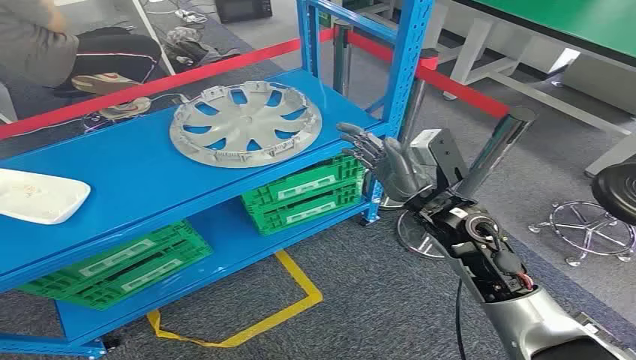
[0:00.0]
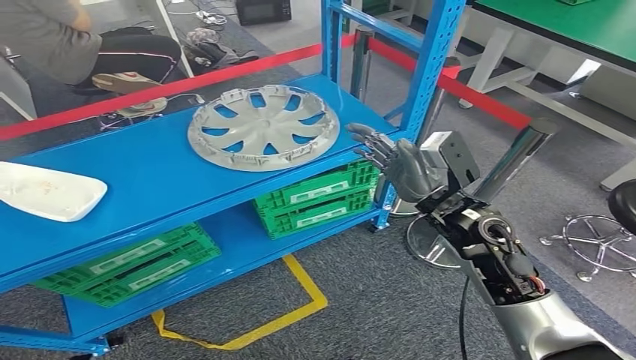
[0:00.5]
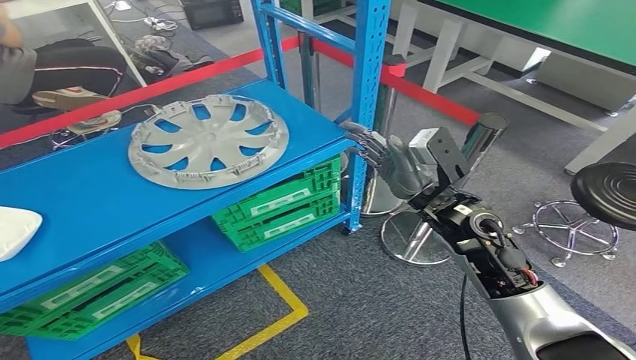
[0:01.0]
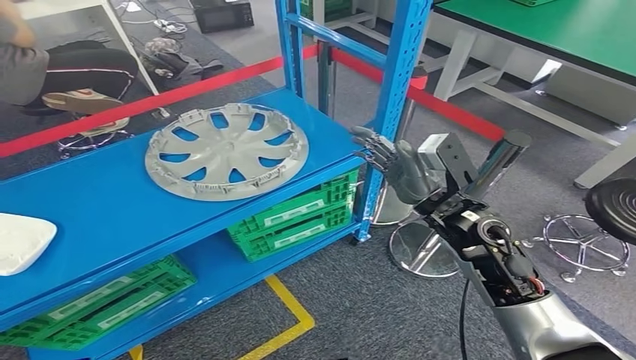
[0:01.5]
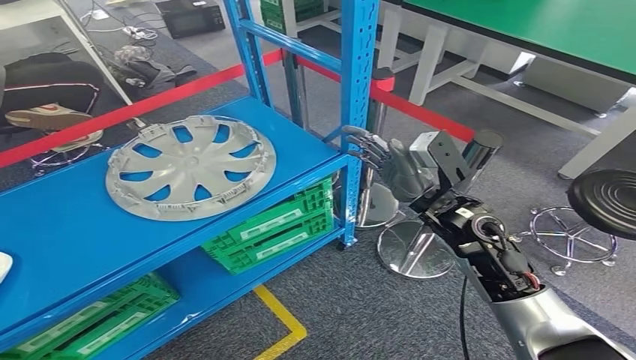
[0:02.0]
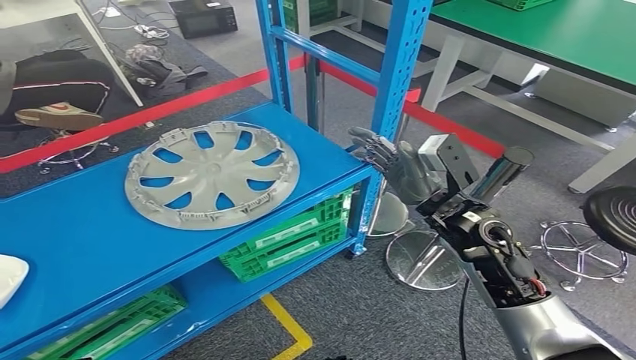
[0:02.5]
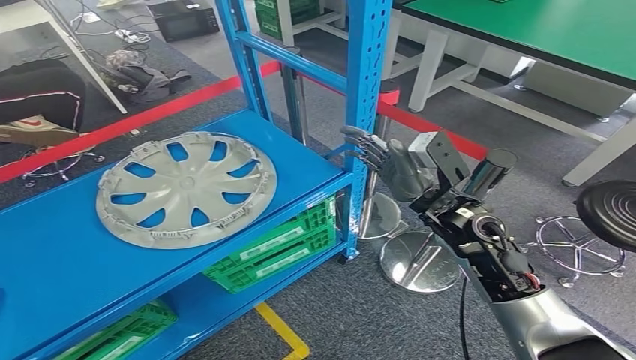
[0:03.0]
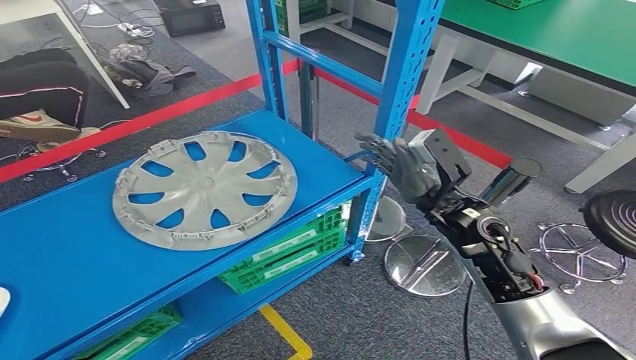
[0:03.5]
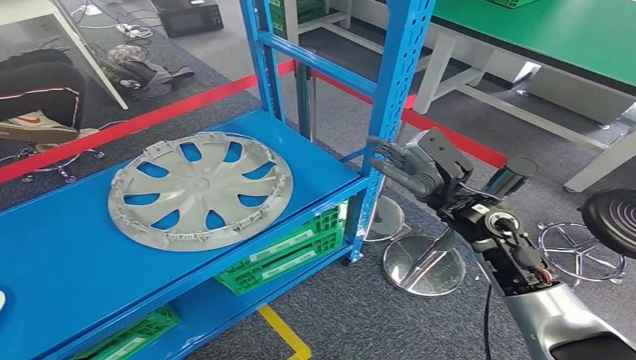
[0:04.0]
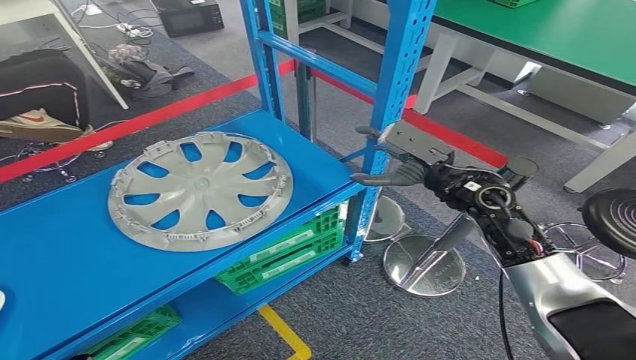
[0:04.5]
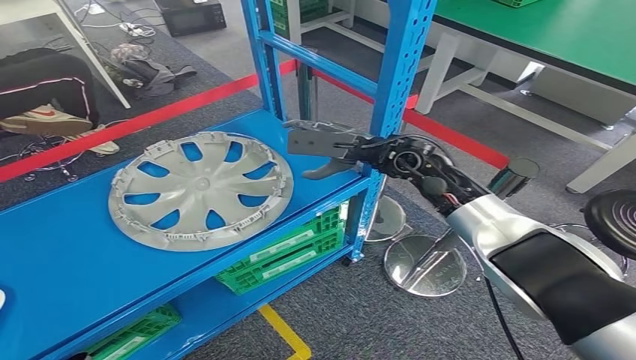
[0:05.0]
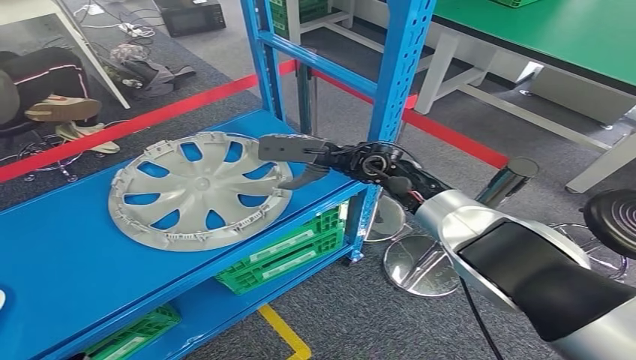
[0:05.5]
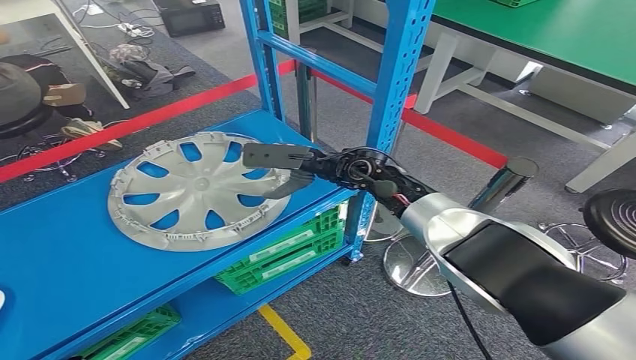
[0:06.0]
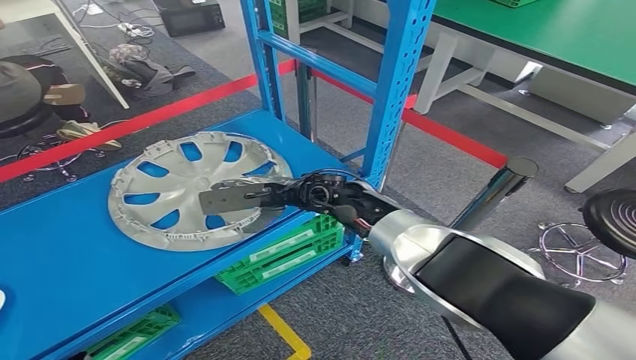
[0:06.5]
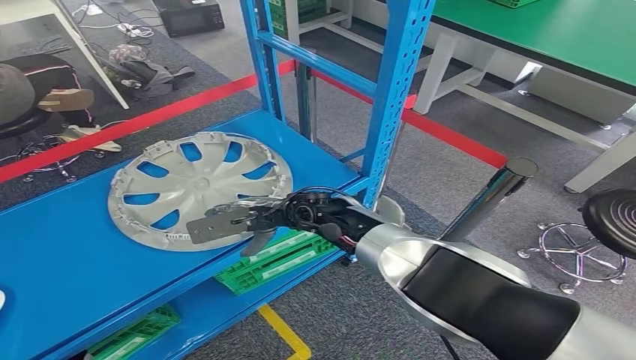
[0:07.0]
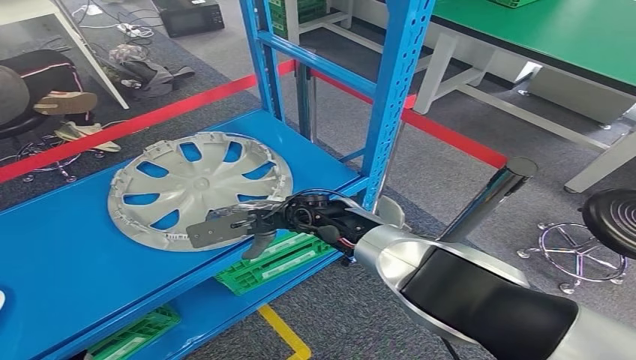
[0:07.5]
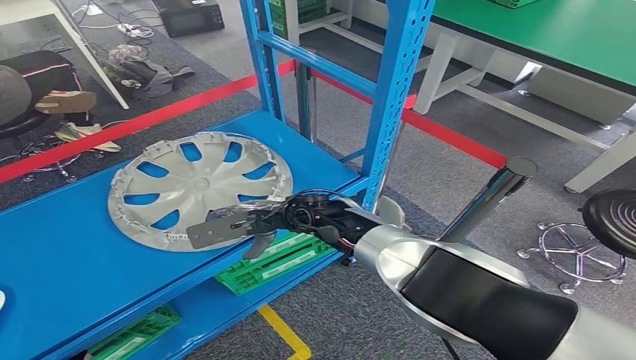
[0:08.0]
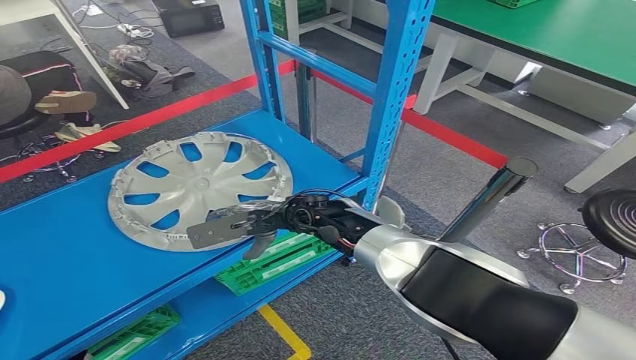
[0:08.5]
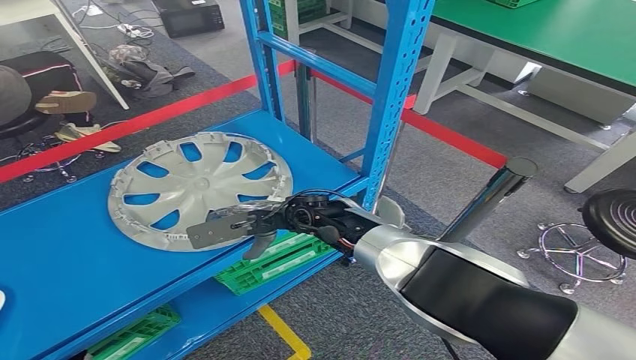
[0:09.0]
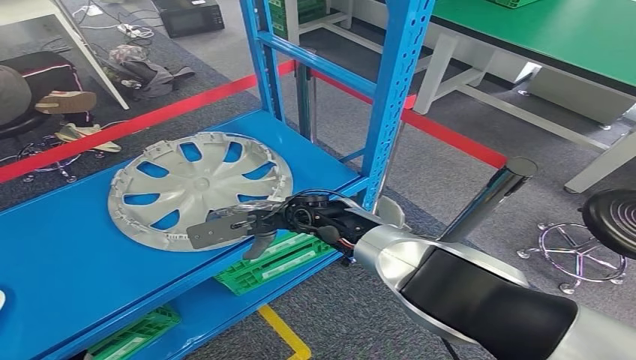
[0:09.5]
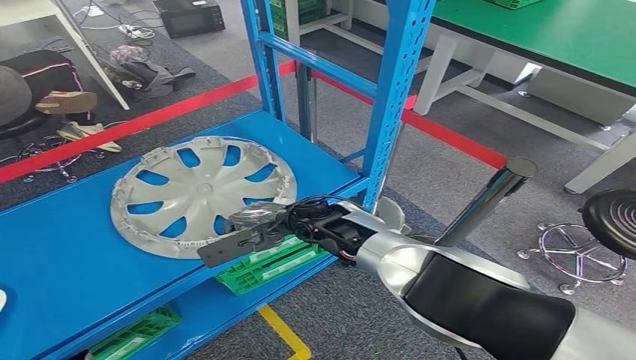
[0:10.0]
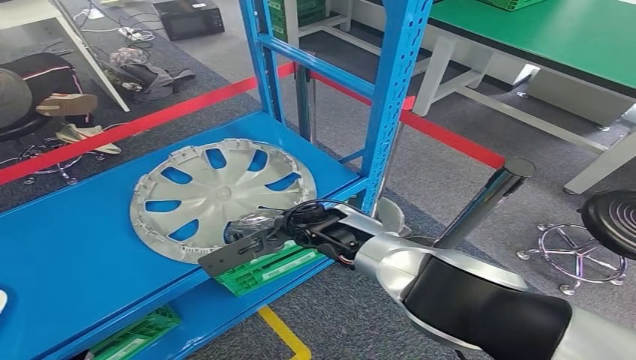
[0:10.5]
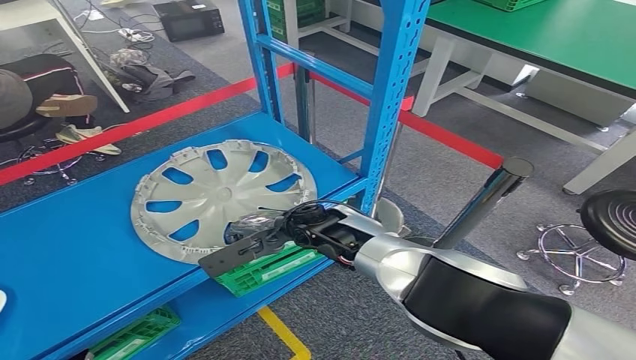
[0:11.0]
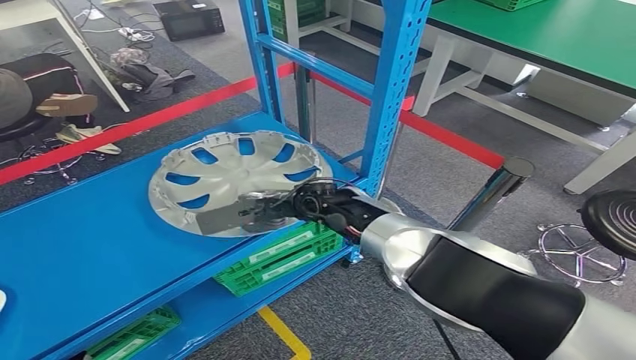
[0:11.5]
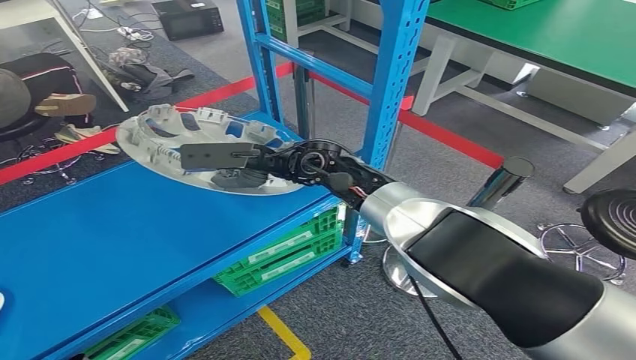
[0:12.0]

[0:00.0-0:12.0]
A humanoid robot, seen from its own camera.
0:04.0 to 0:06.0: The right hand shifts approximately 15 cm to the left and forward.
0:06.0 to 0:08.0: The right hand moves to the left, downward and backward, approximately 10 cm.
0:08.0 to 0:10.0: The hands stay close to where they were, moving slightly.

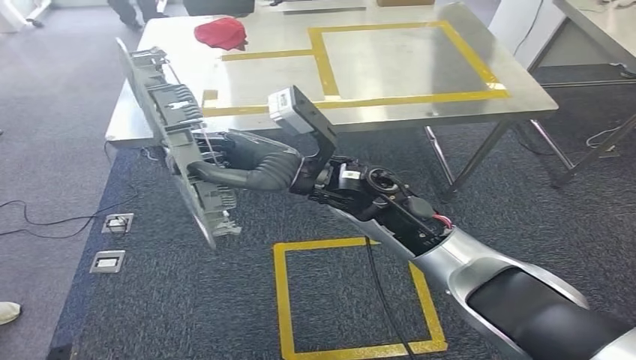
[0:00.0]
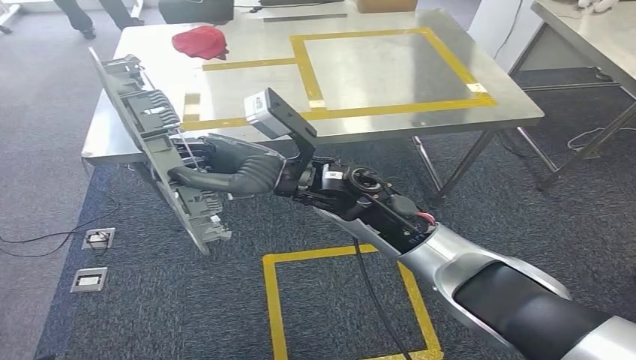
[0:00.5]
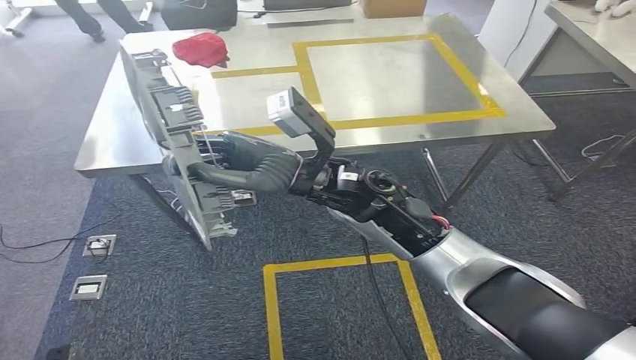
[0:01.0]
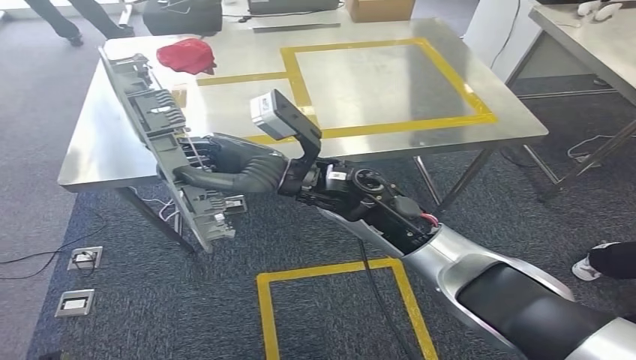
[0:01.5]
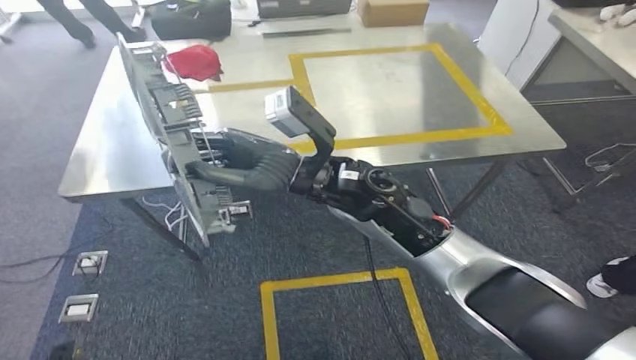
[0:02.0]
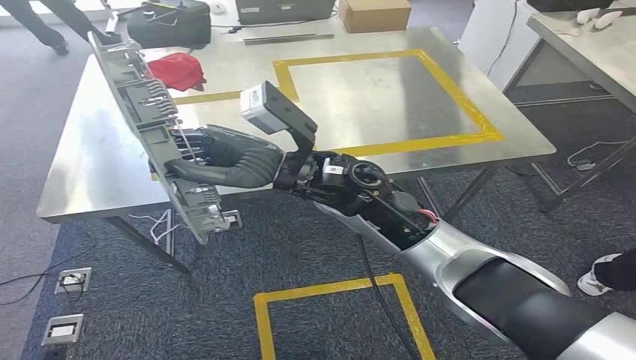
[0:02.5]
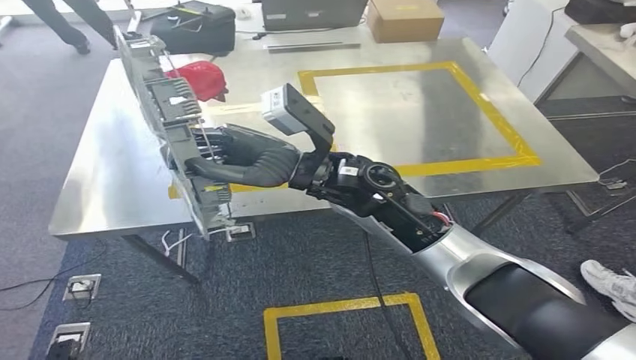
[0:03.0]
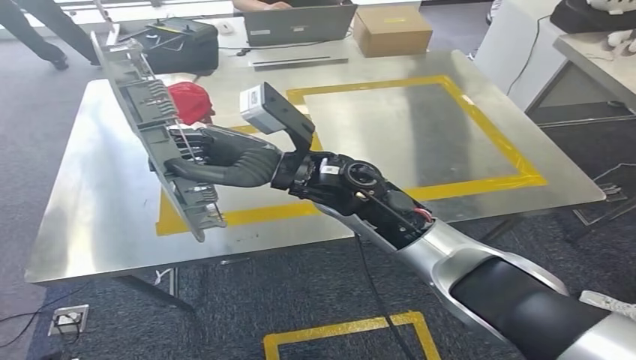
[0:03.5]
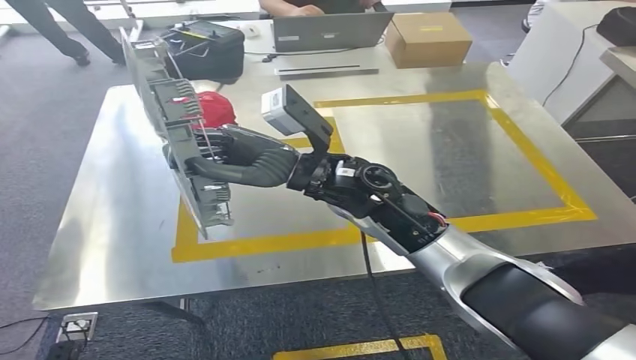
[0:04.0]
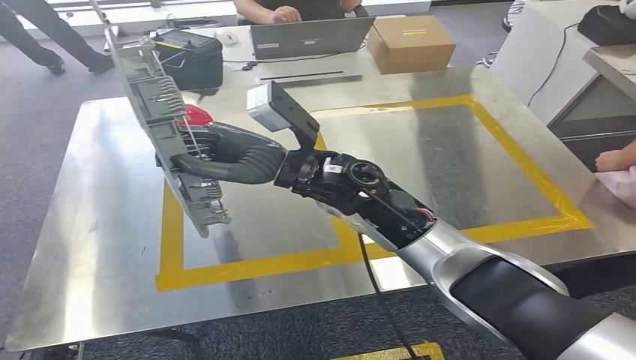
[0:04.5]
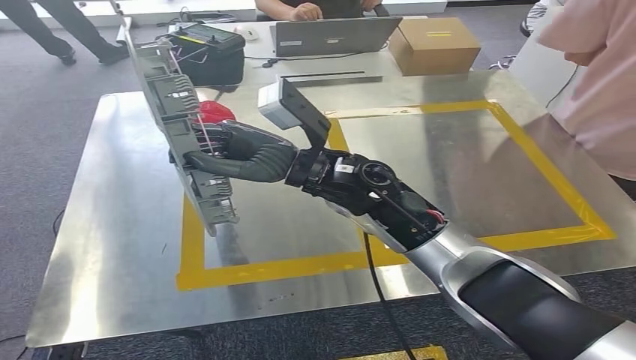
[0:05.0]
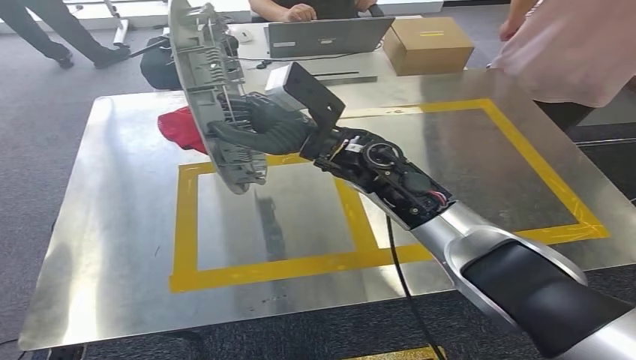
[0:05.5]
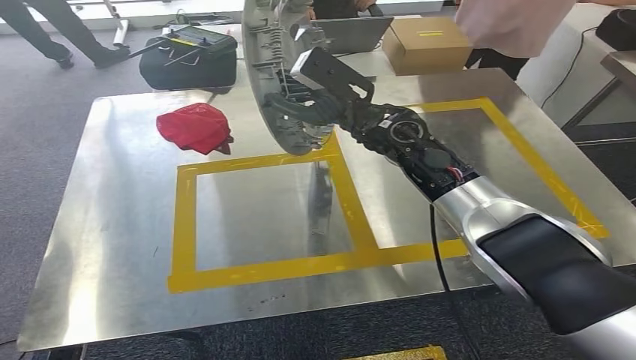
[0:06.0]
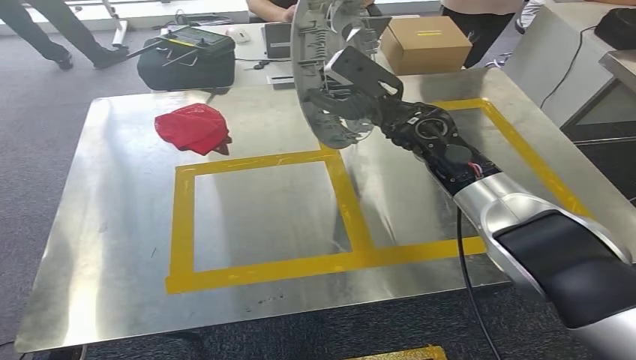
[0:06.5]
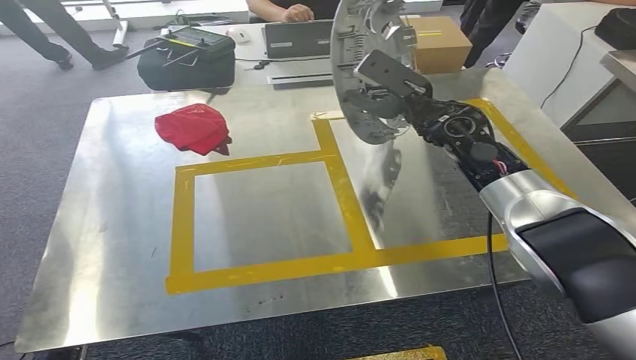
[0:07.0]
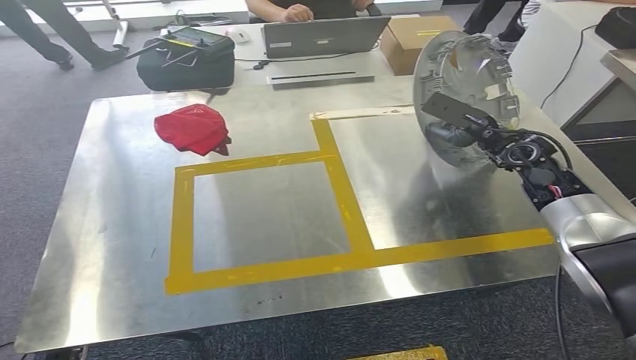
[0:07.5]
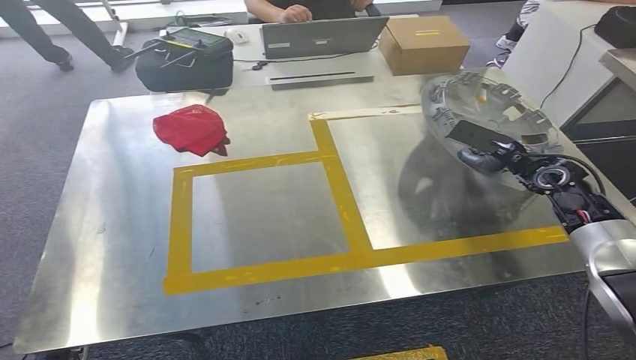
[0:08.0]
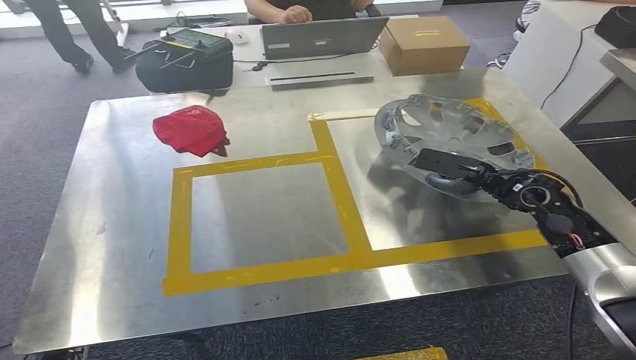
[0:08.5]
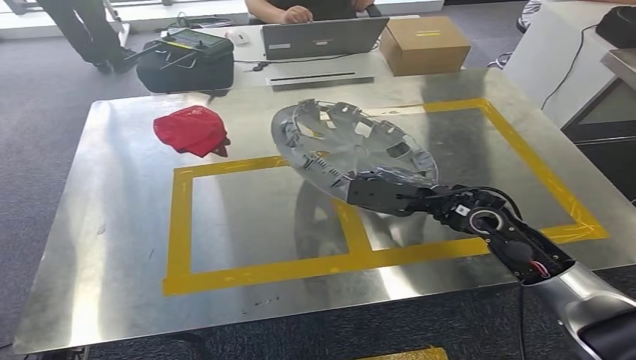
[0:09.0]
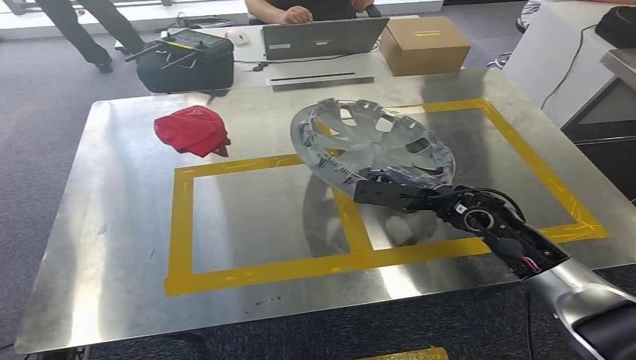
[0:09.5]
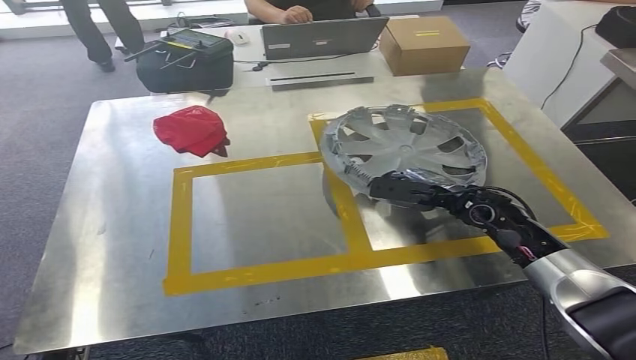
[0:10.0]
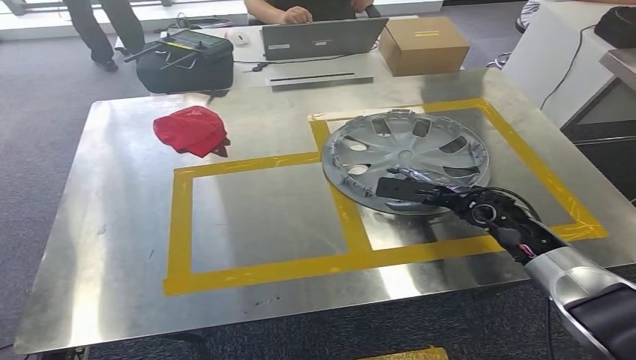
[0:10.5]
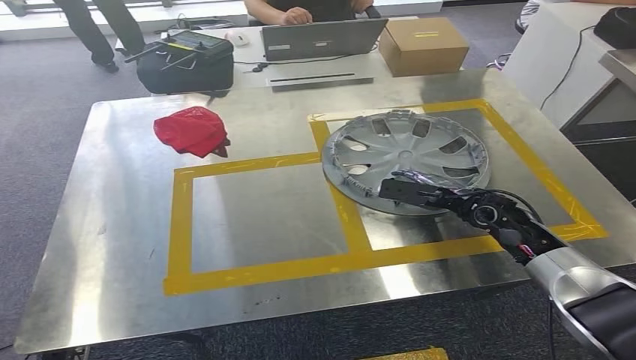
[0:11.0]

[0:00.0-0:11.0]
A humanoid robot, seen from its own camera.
Step, 0:00.0 to 0:03.5: Move the small parts to the workbench.
0:09.0 to 0:11.0: The right hand travels to the right and downward by about 10 cm.
